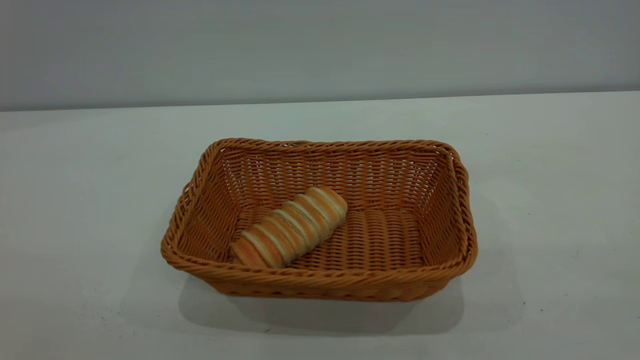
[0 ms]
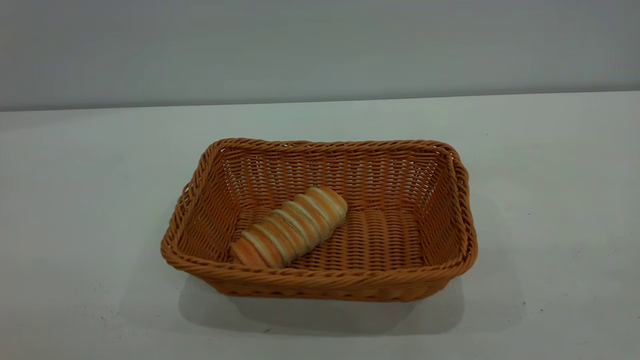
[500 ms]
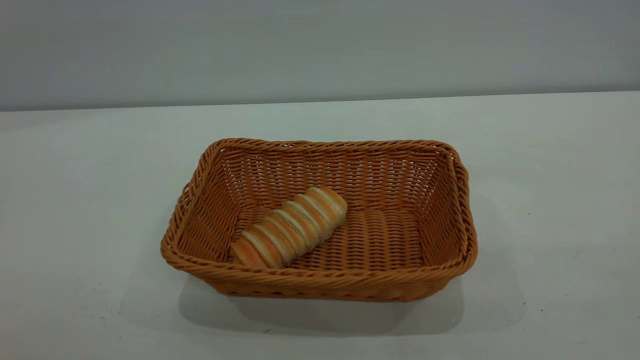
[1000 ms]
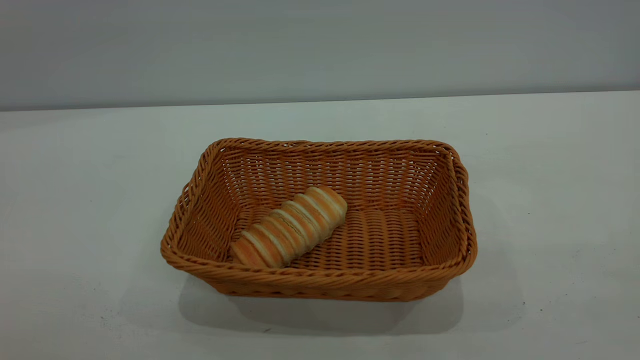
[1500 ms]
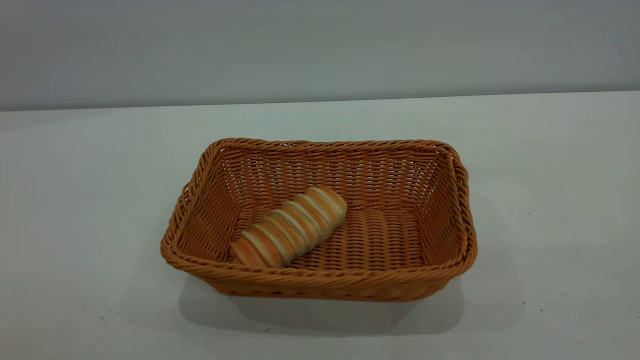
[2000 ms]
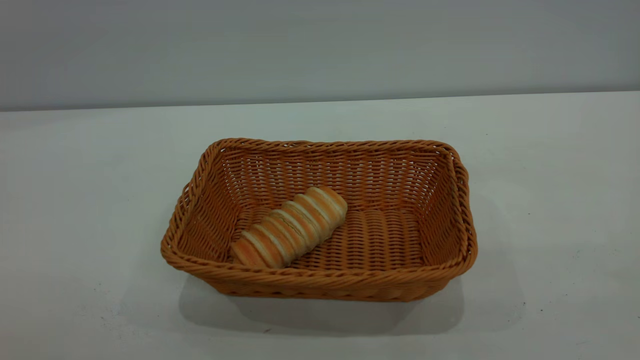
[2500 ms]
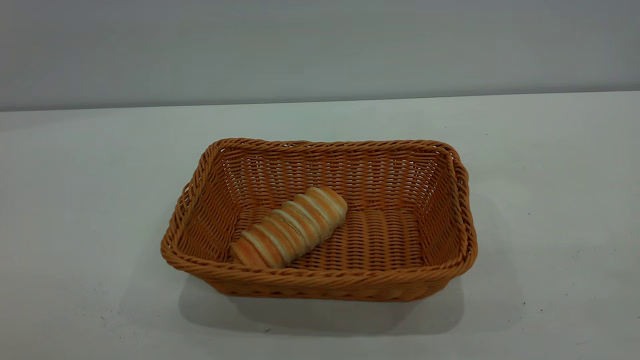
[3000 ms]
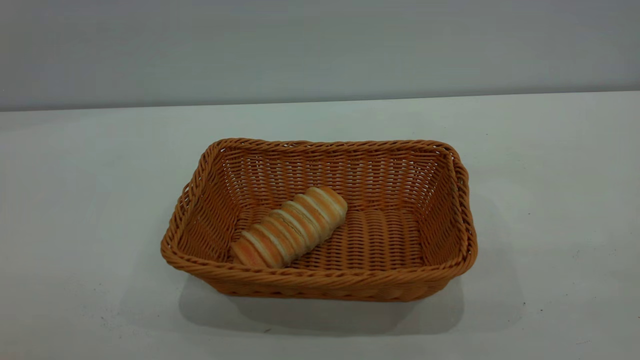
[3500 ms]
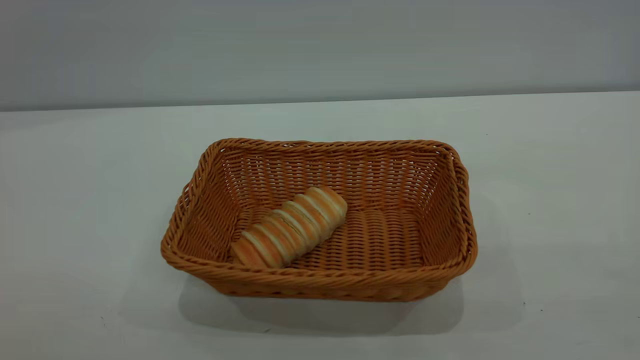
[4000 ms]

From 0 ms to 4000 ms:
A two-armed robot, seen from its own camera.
Task of the whole recording: One hand grasps the yellow basket and places it in the middle of the table, while the other hand picks up the long bread and puts it into the yellow basket.
From 2000 ms to 4000 ms: Both grippers stay about where they are.

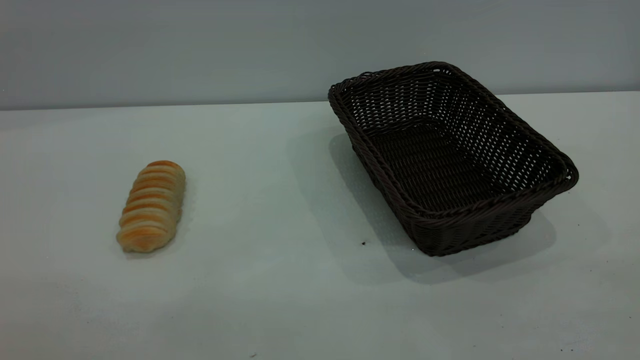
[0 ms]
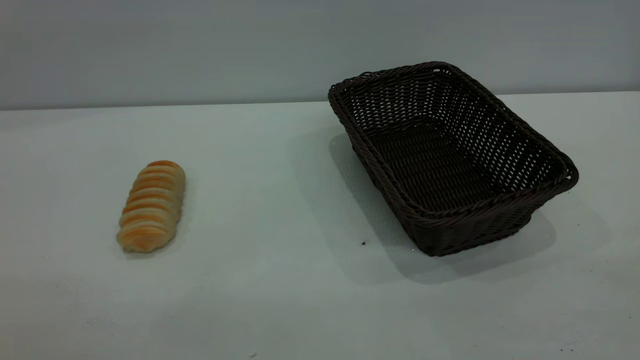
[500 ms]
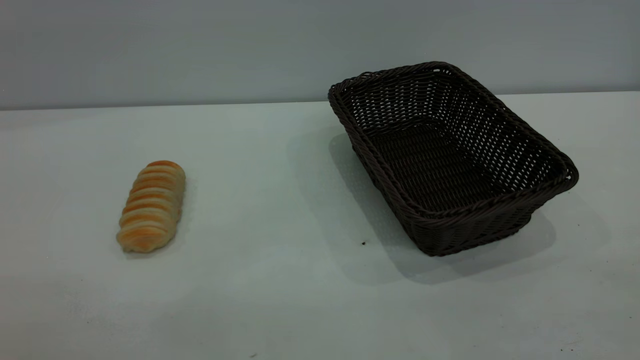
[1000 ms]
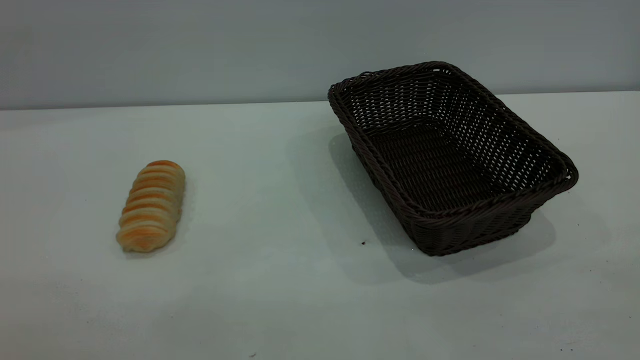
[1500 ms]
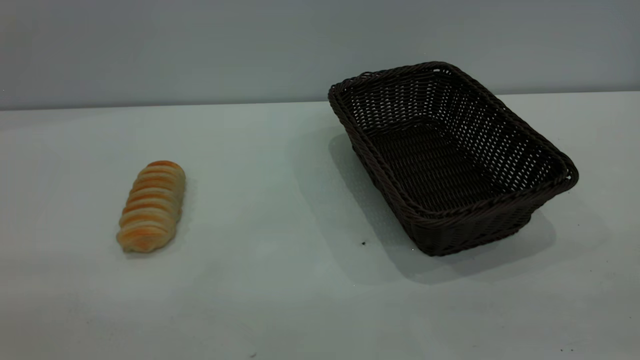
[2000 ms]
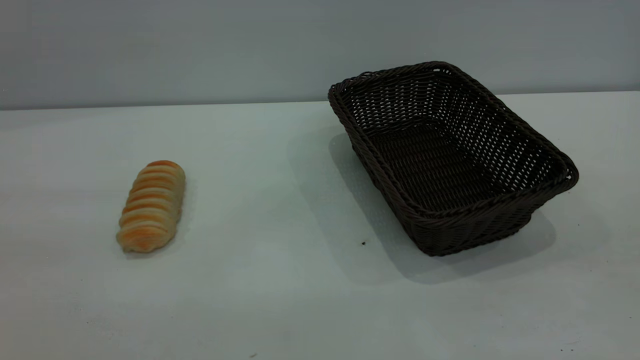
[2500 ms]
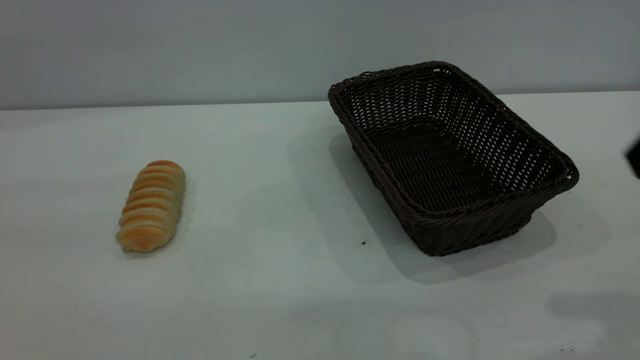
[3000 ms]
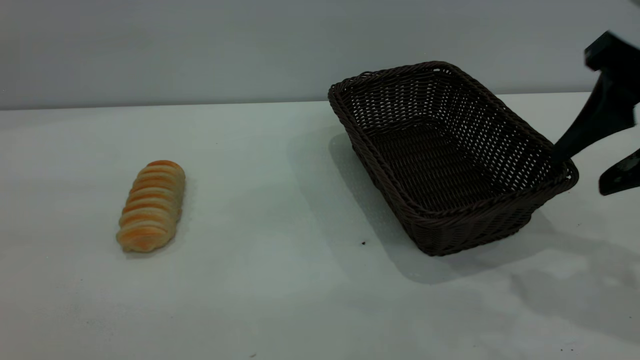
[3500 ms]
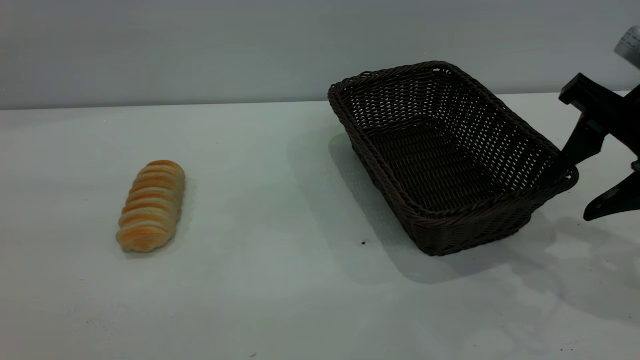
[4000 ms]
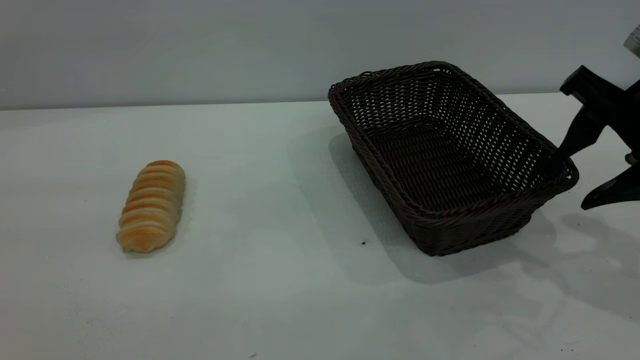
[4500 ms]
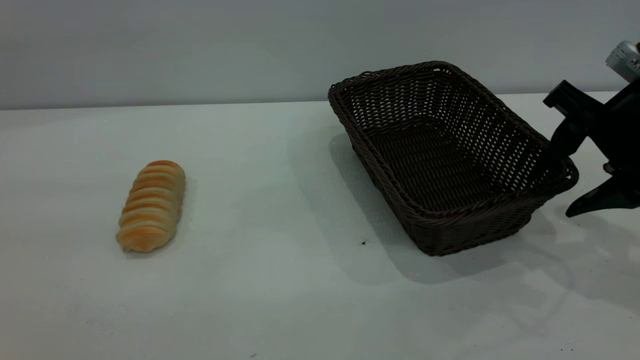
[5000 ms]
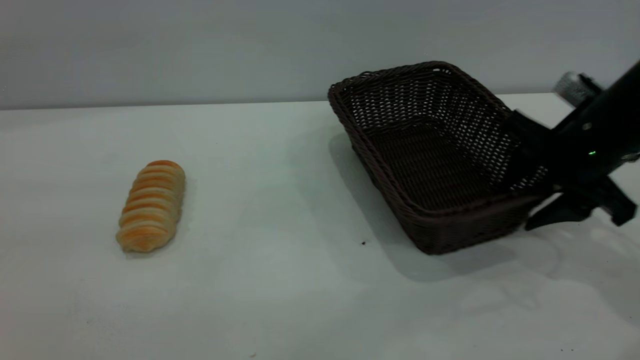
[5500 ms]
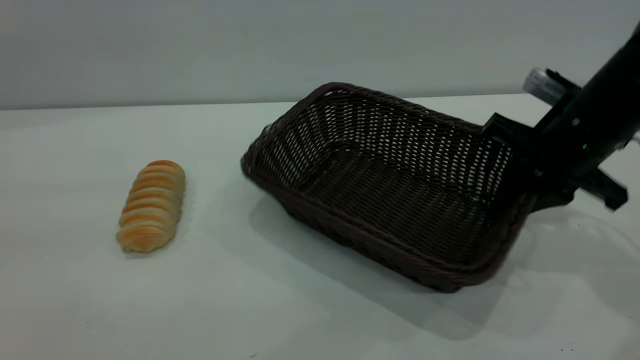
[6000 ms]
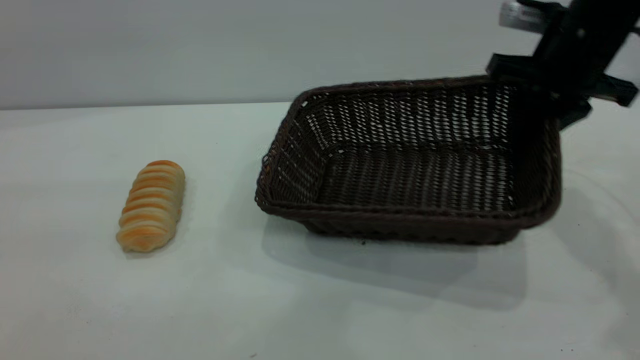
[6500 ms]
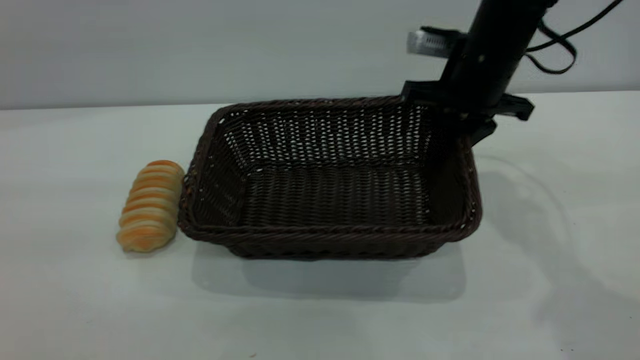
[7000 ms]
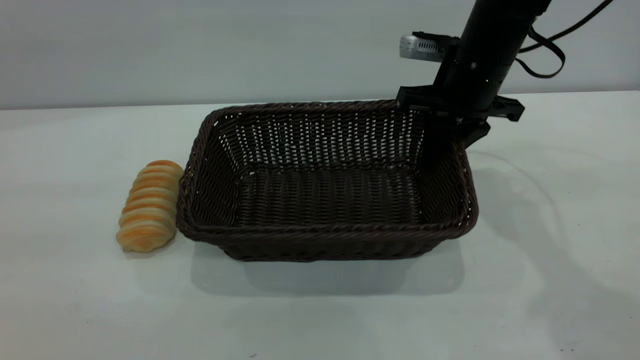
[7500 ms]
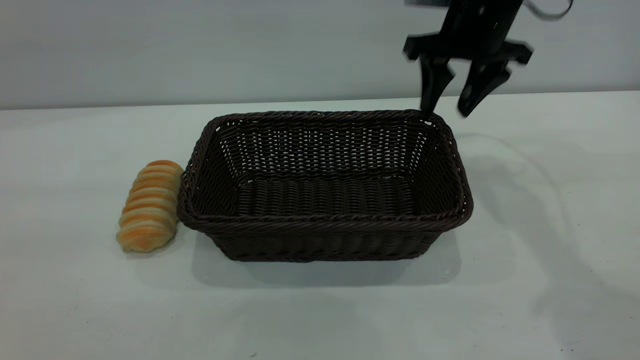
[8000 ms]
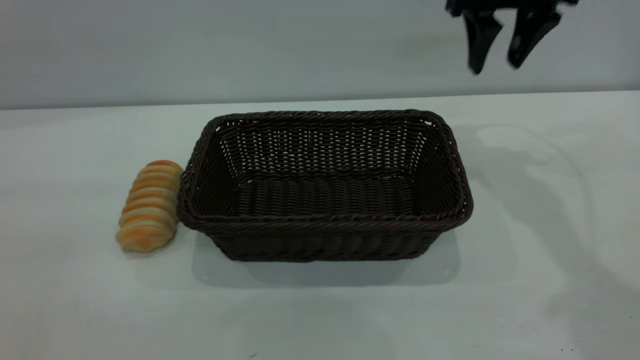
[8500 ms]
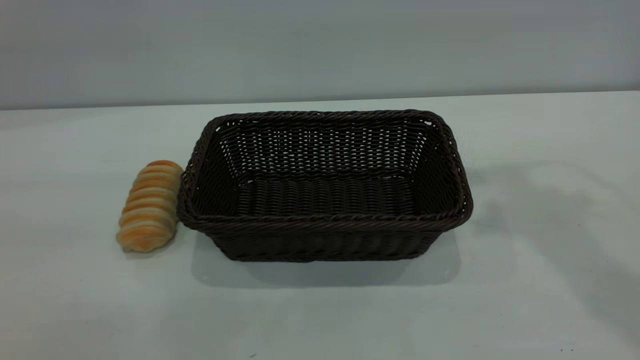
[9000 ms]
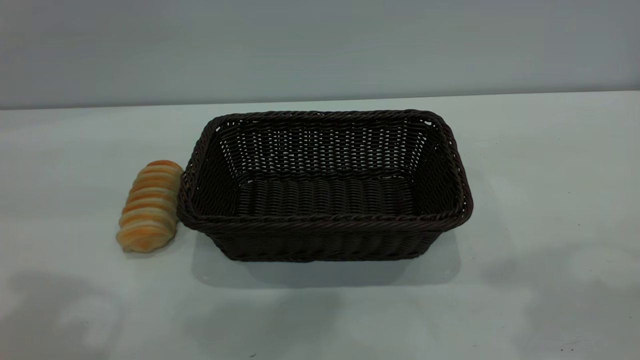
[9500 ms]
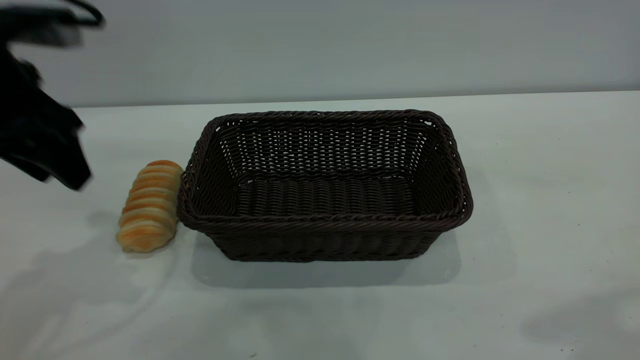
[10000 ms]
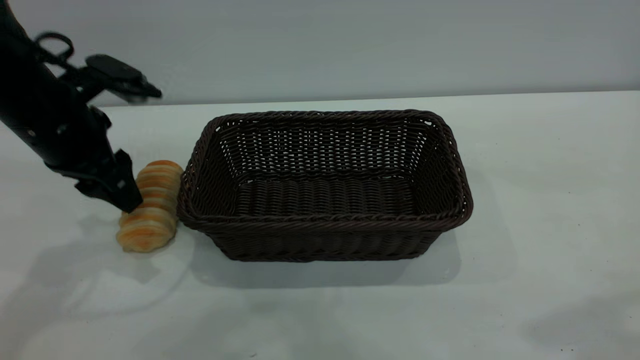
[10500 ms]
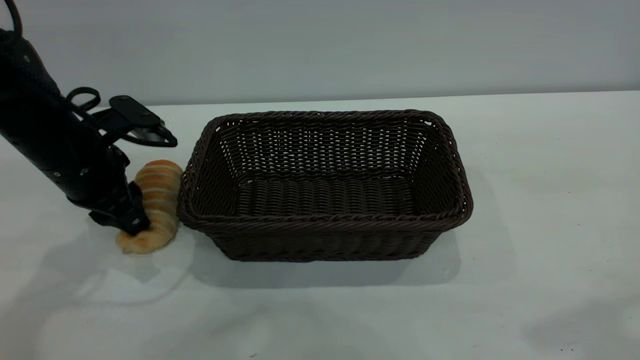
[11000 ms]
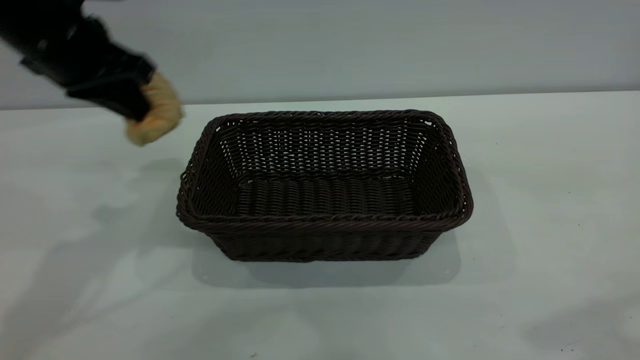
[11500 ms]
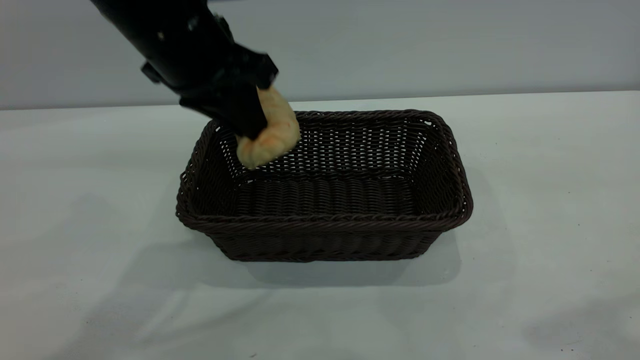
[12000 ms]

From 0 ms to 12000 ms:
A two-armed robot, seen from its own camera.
Task of the whole recording: One hand grasps the black basket and places it in the middle of the table, while the other hand picks up the long bread and puts it into the black basket.
Step, from 0 ms to 8000 ms: Move the basket to the center of view.
From 2000 ms to 4000 ms: The right gripper moves forward and downward, about 30 cm.
From 4000 ms to 6000 ms: The right gripper moves forward and downward, some 10 cm, and closes its fingers.
From 6000 ms to 8000 ms: The right gripper travels forward, upward and to the left by roughly 15 cm, and opens.
From 8000 ms to 10000 ms: The right gripper goes approximately 35 cm backward and upward. Meanwhile the left gripper shifts approximately 30 cm forward and downward.
From 10000 ms to 12000 ms: The left gripper shifts roughly 15 cm to the right, and closes its fingers.

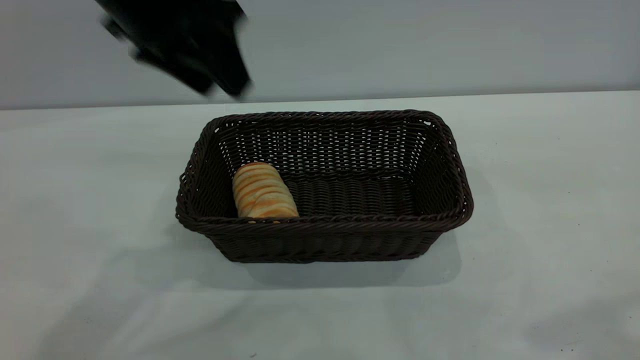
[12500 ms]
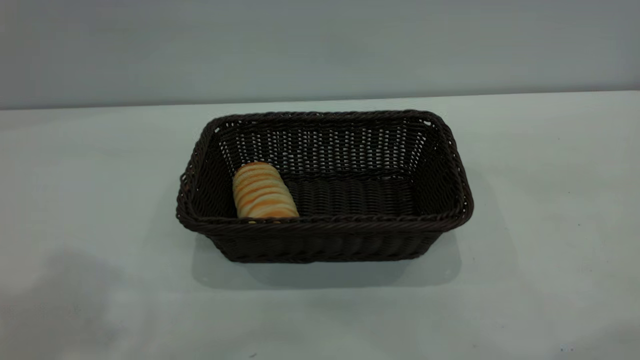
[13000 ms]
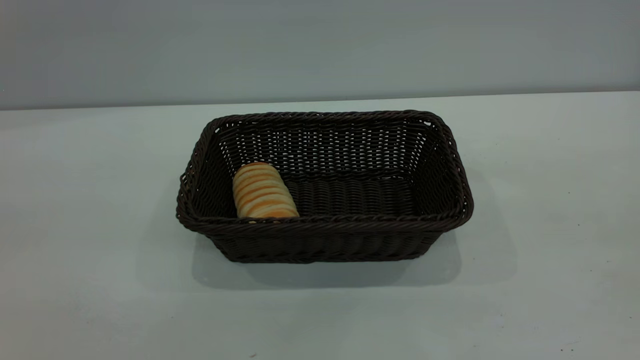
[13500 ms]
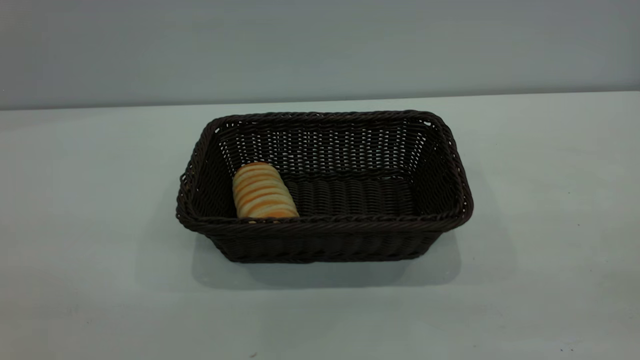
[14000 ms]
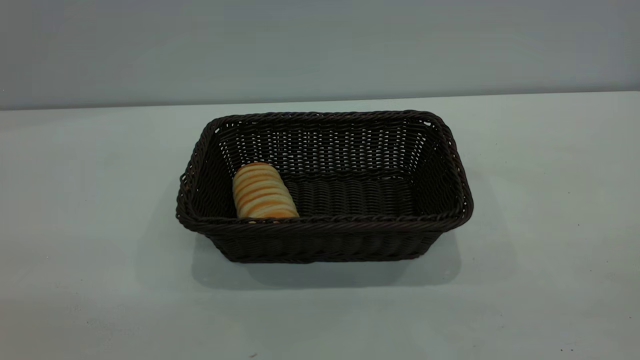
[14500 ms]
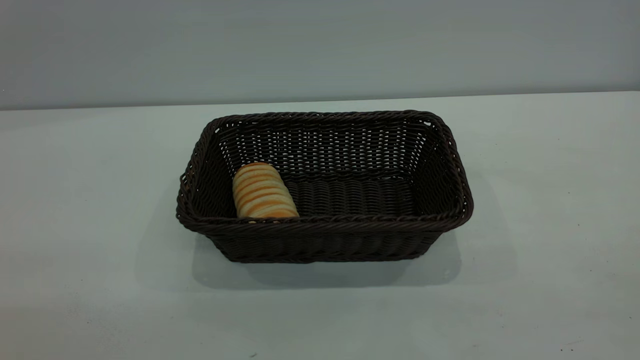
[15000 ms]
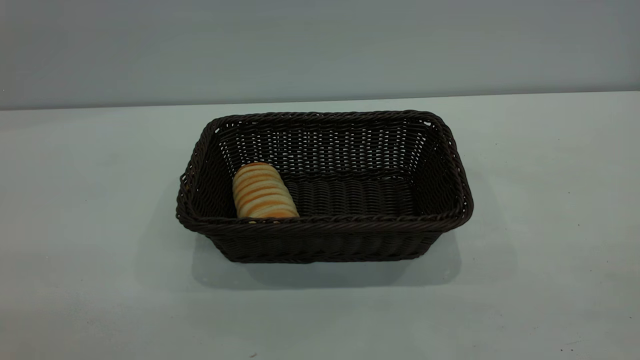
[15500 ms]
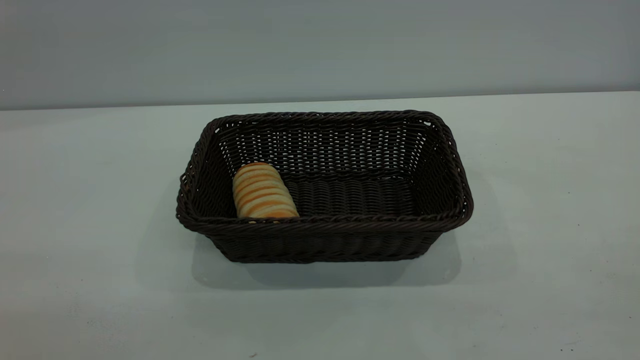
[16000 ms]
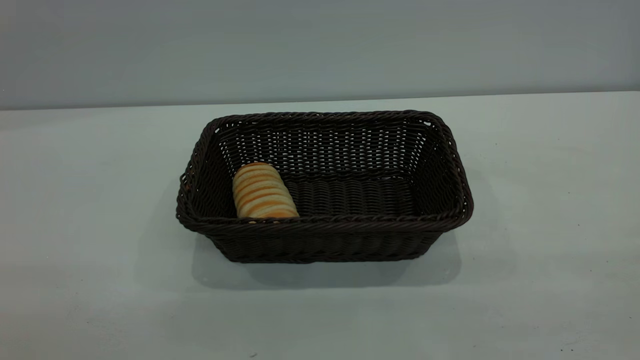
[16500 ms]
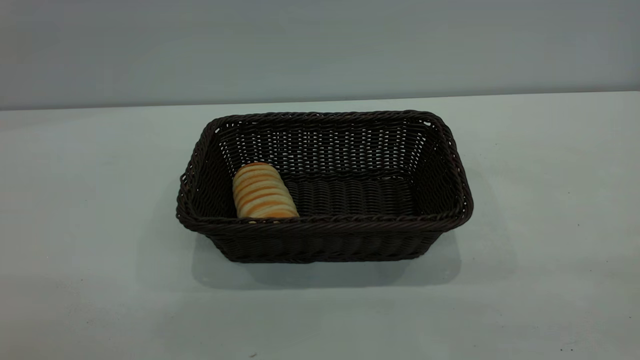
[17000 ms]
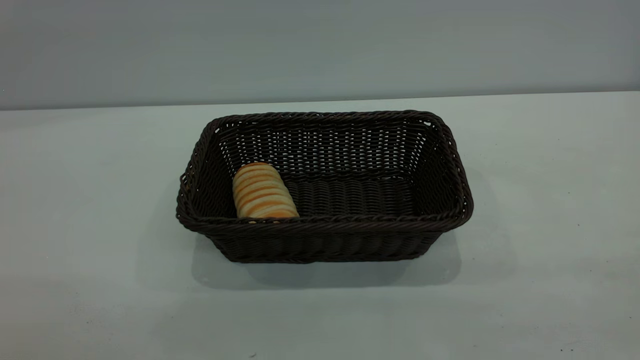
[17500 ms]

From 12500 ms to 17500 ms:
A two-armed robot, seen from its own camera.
Task of the whole recording: One hand grasps the black basket and places it in the middle of the table, while the other hand picks up the long bread and puts it into the black basket.
From 12500 ms to 15000 ms: The left gripper goes some 35 cm backward and to the left. The right gripper heads backward and downward, covering about 20 cm.
